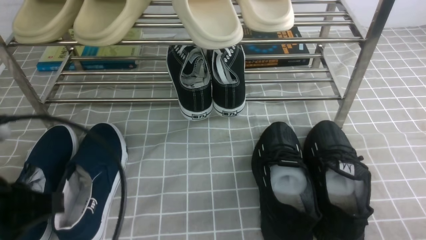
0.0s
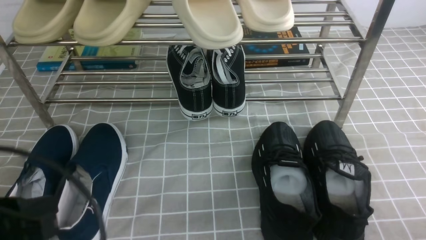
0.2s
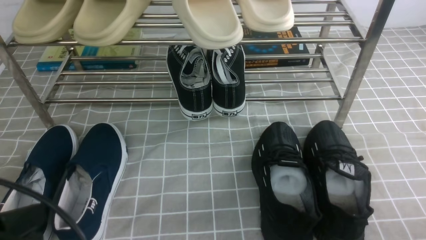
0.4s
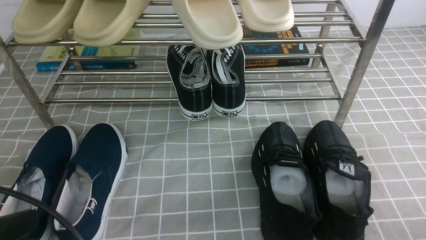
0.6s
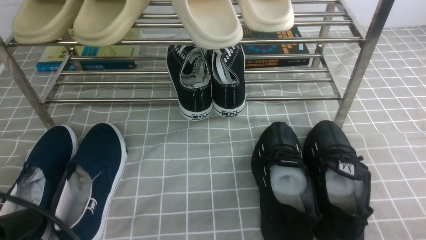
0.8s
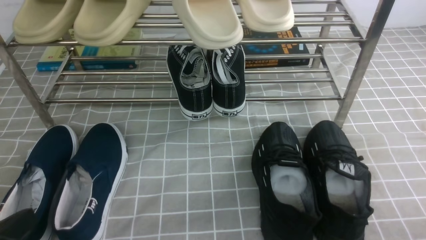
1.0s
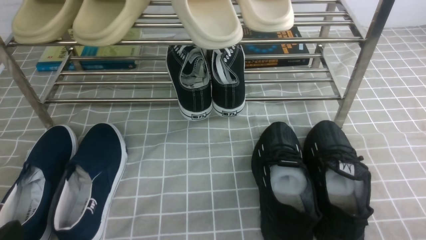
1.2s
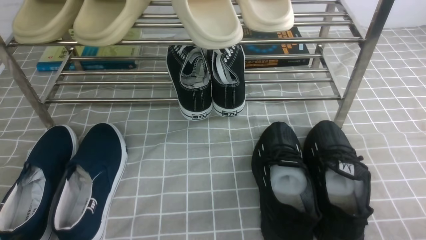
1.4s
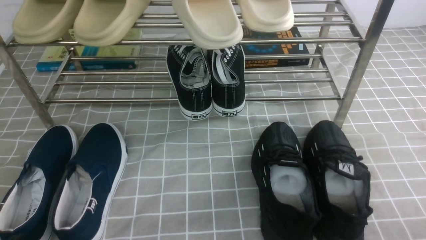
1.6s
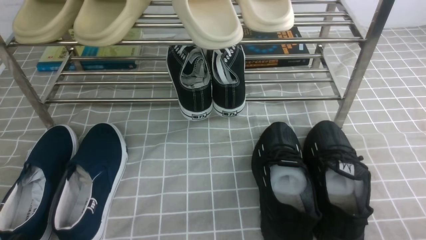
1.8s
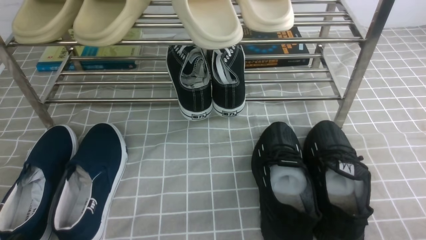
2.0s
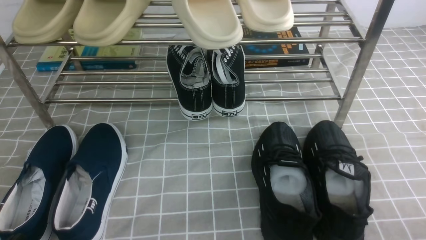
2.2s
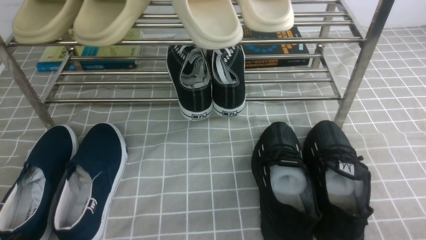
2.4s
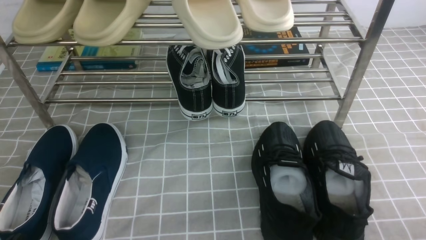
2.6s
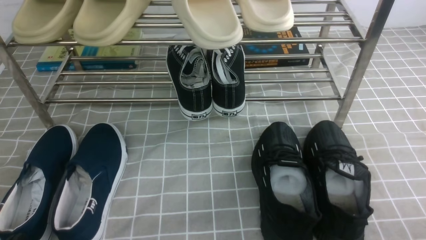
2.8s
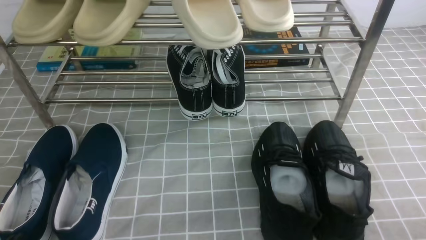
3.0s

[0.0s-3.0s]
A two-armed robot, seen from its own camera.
0.0s to 1.6s: The left gripper goes approximately 15 cm downward and backward.
1.6s to 3.0s: Neither gripper changes place.
